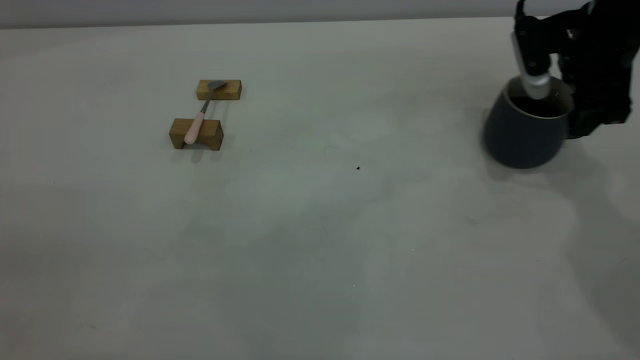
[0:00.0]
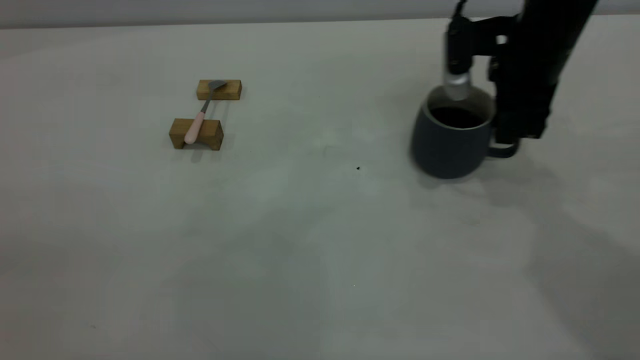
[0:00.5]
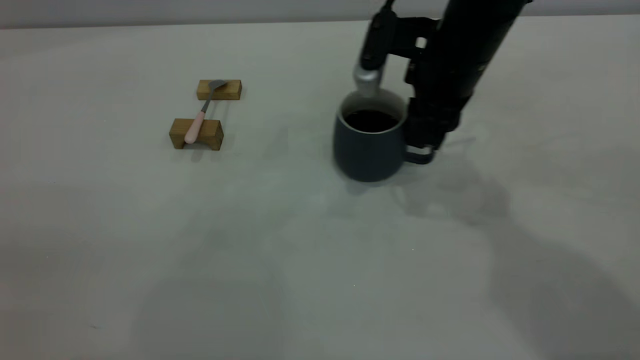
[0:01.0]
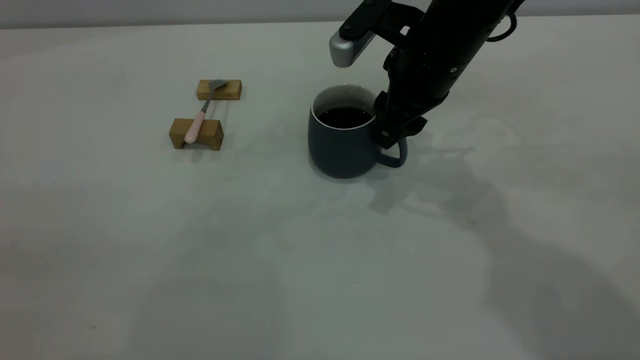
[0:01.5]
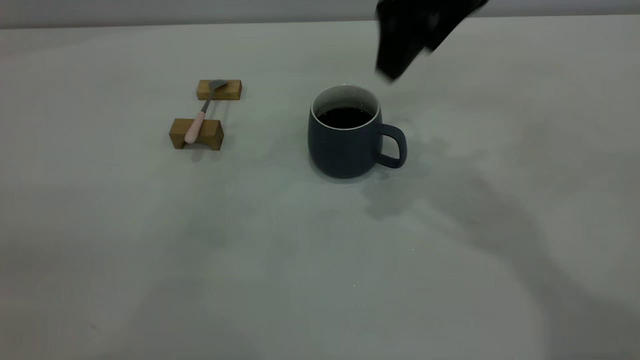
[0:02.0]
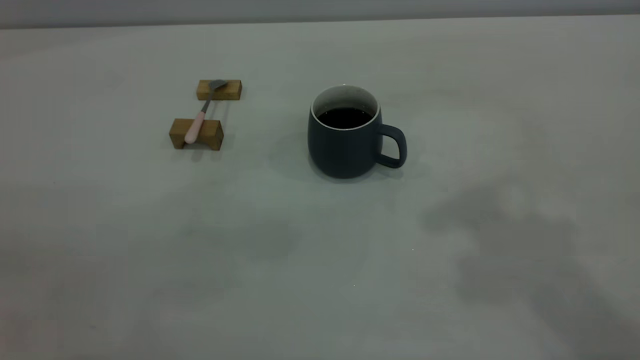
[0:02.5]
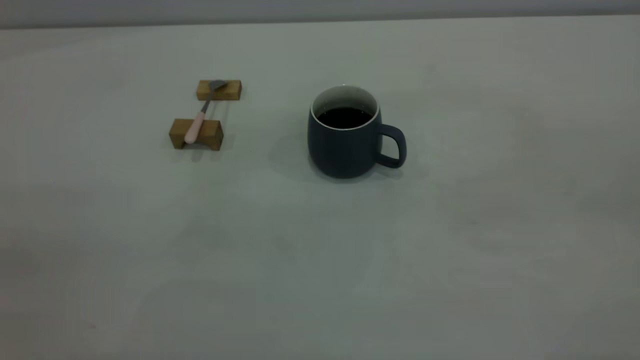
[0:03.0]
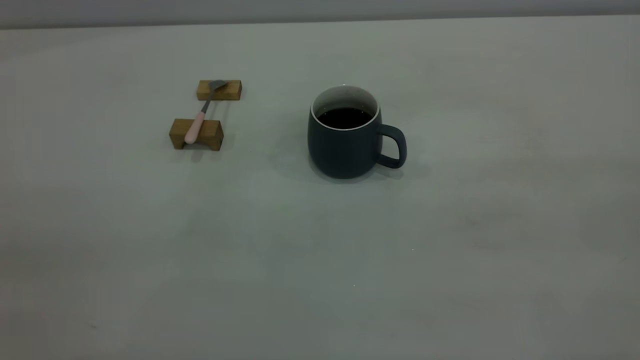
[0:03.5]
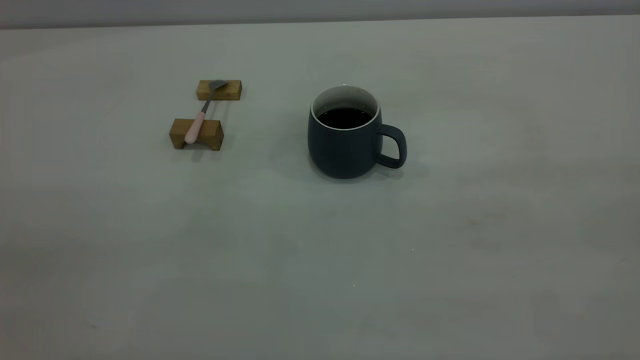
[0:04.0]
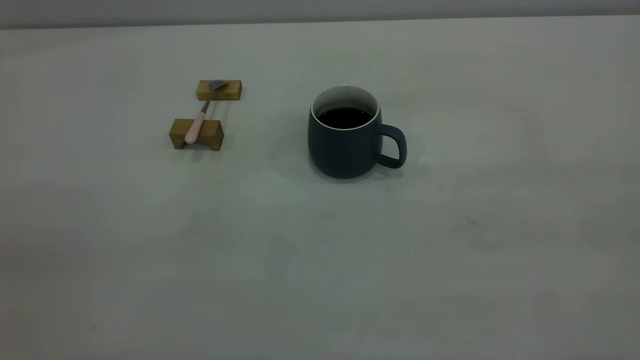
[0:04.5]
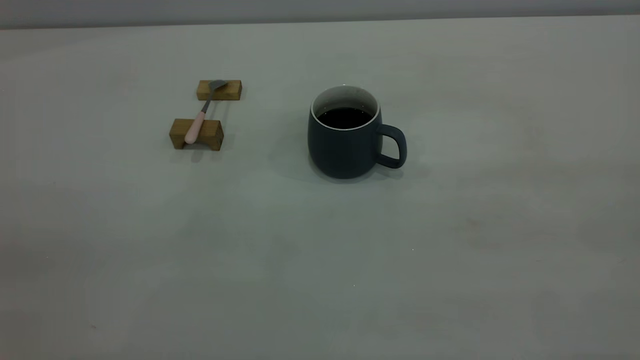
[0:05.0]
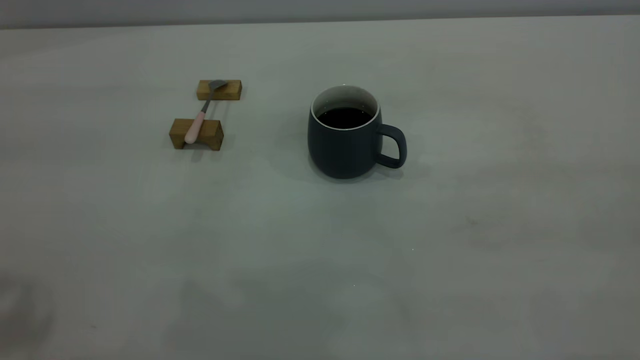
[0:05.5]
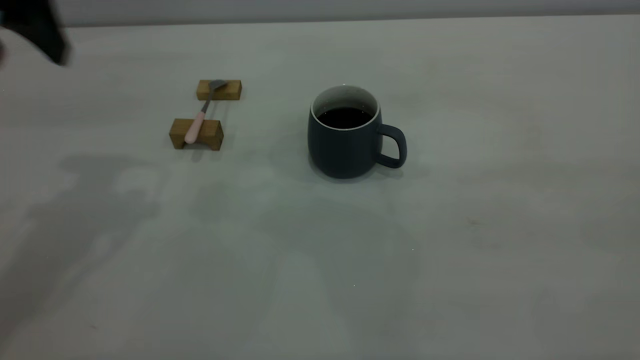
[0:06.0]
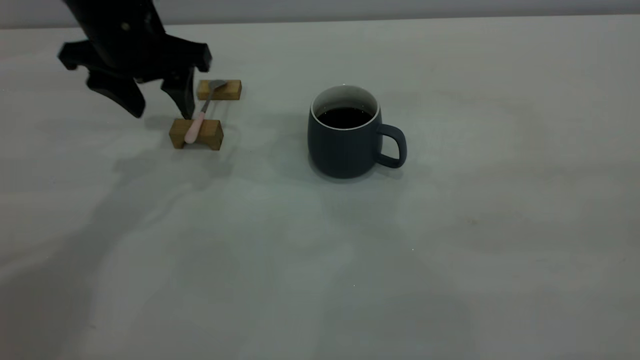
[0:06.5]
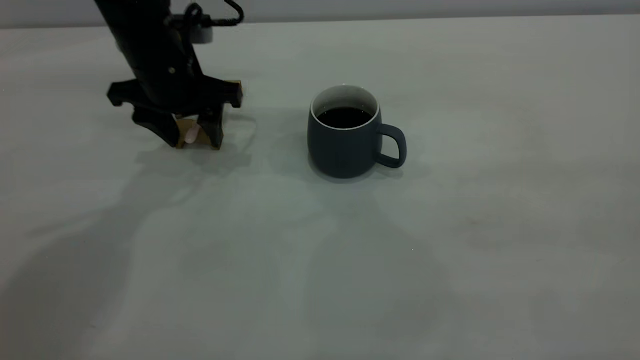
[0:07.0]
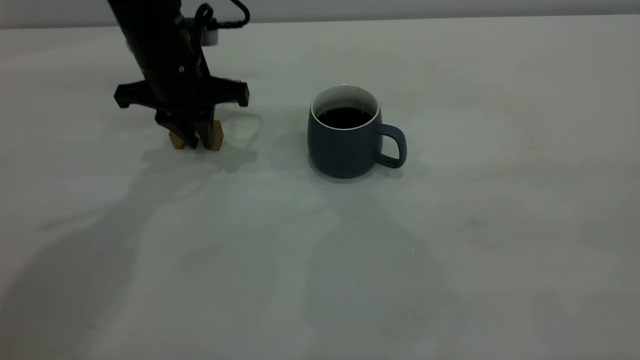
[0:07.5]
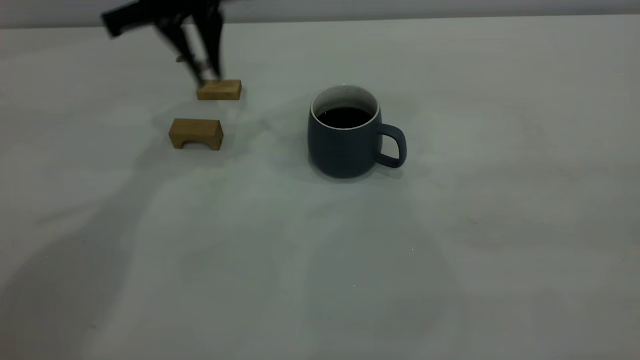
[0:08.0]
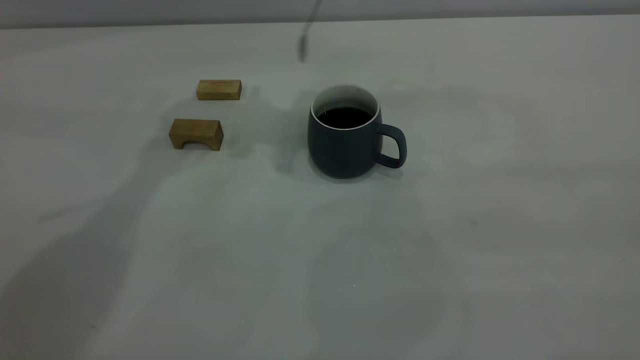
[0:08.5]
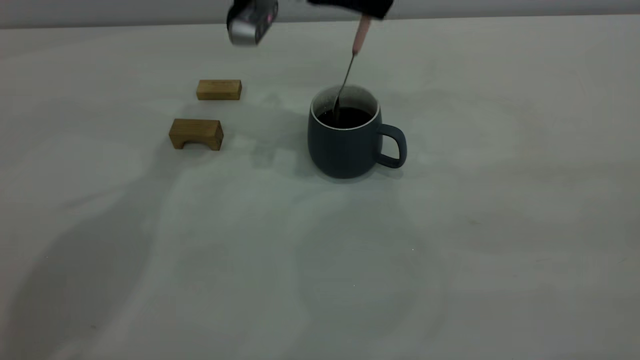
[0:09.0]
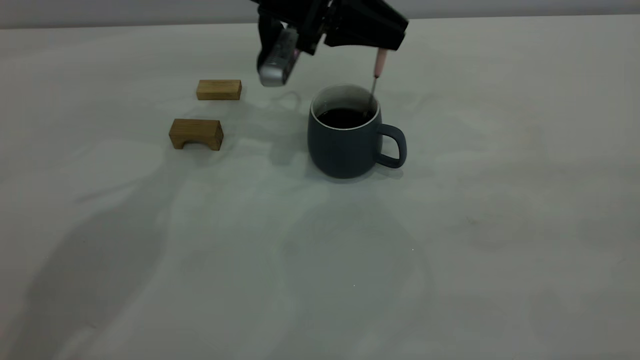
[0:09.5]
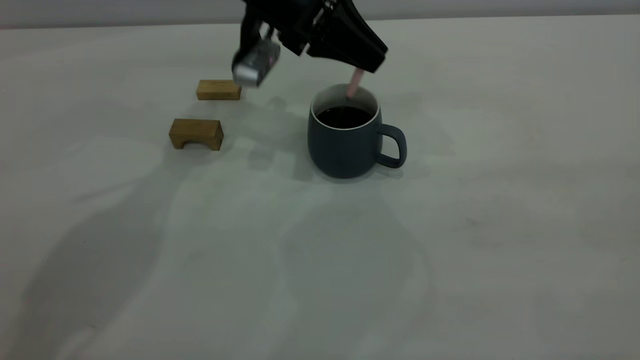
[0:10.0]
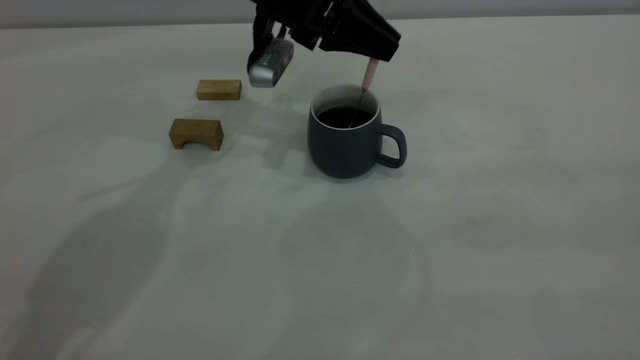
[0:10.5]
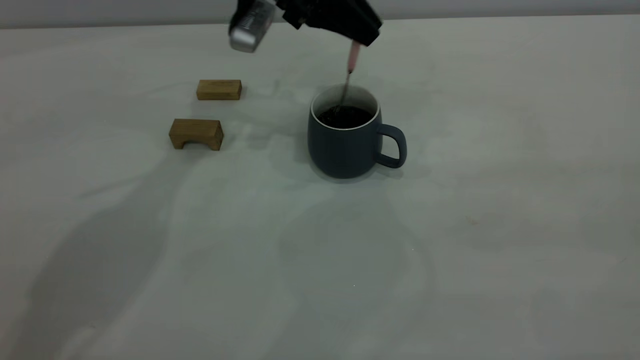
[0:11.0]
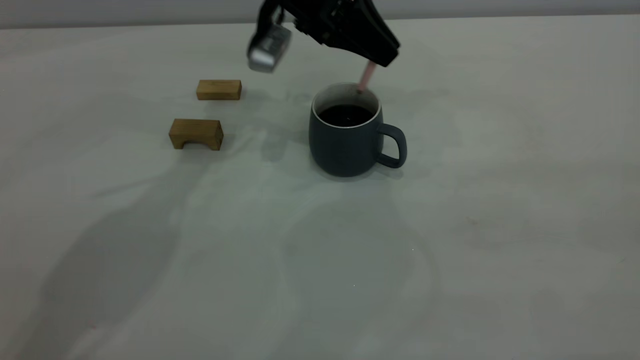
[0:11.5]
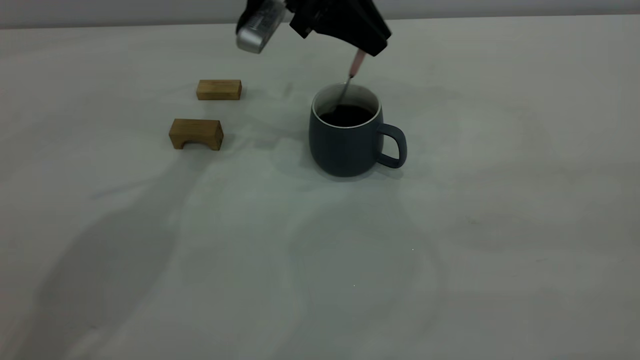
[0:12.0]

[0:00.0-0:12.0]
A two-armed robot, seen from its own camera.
Step, 0:02.0 to 0:07.5: Pick up the spoon.
0:00.0 to 0:02.0: The right gripper goes some 20 cm to the left and upward, and opens up.
0:02.0 to 0:04.0: The right gripper shifts some 40 cm backward and to the right.
0:04.0 to 0:06.0: The left gripper is displaced forward by some 35 cm, and opens up.
0:06.0 to 0:08.0: The left gripper is displaced forward and to the right by some 15 cm, moves roughly 15 cm downward and comes back, and closes up.
0:08.0 to 0:10.0: The left gripper moves to the right and downward, about 10 cm.
0:10.0 to 0:12.0: The grippers make only small movements.

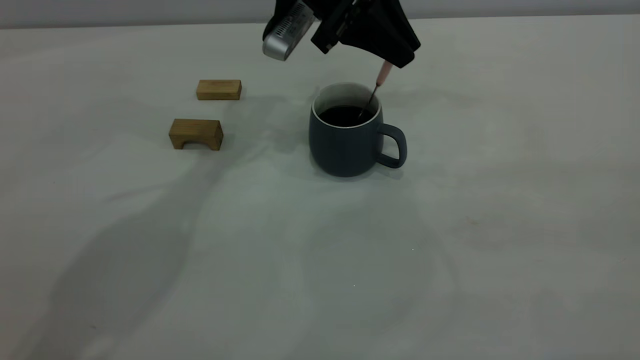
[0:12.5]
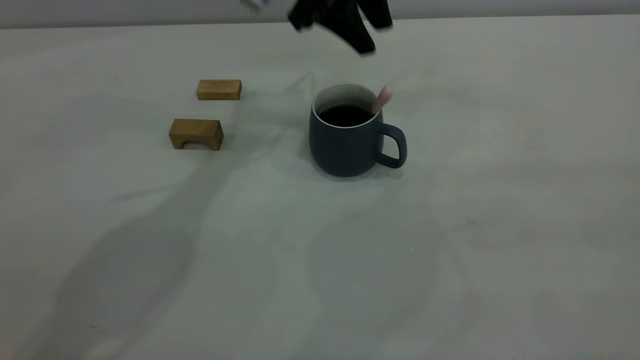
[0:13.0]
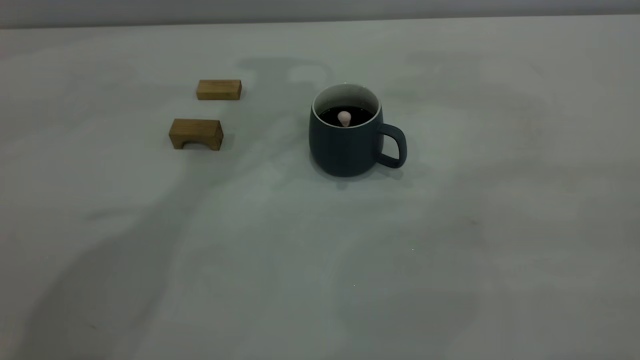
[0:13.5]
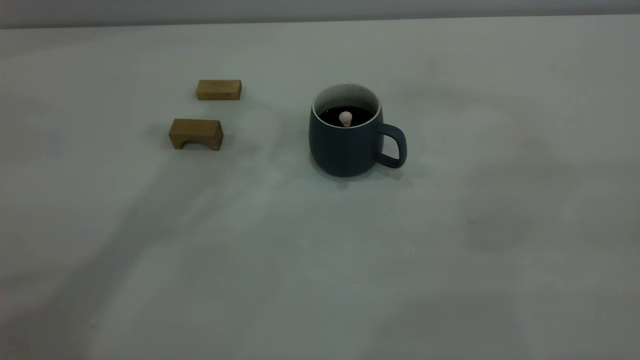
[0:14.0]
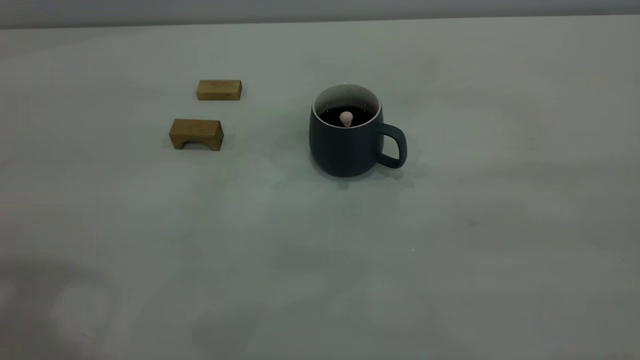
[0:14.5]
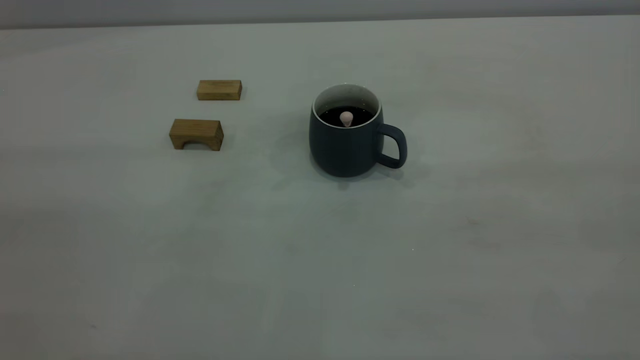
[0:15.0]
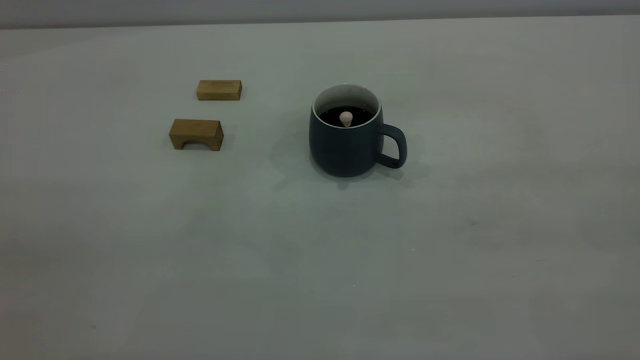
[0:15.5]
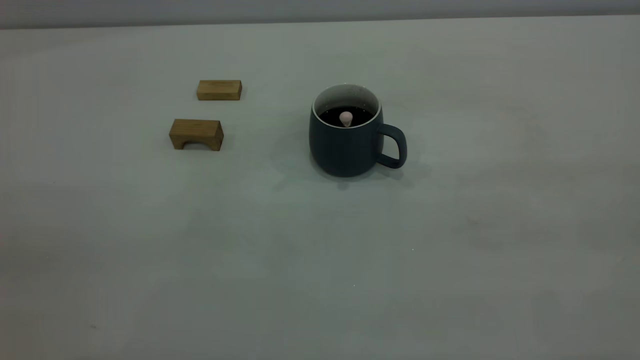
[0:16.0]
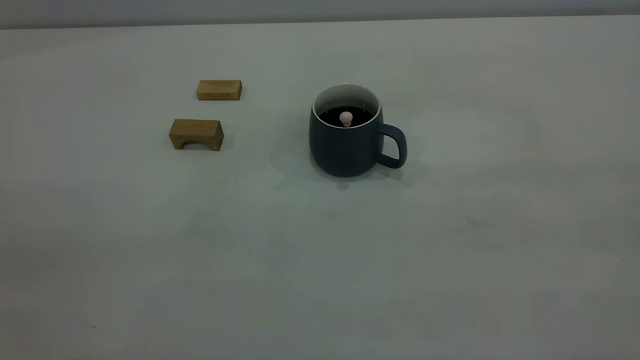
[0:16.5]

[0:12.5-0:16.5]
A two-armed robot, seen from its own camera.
0:12.5 to 0:14.5: The left gripper is displaced backward, to the left and upward by some 40 cm, and opens up.
